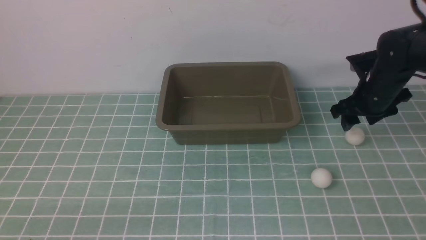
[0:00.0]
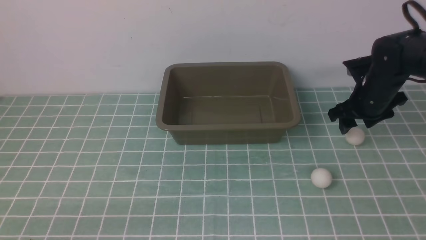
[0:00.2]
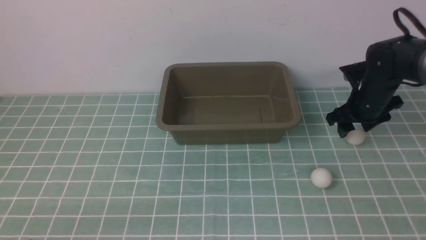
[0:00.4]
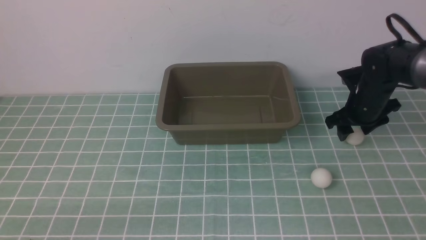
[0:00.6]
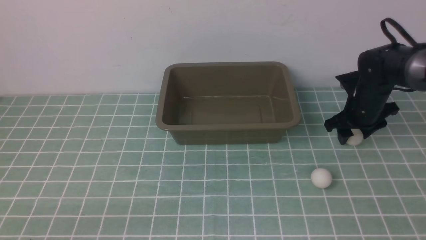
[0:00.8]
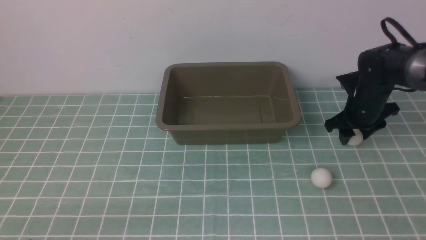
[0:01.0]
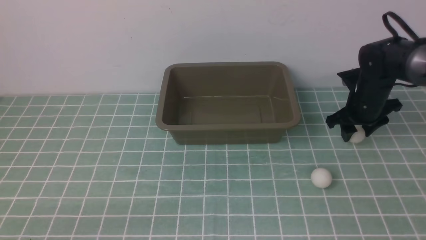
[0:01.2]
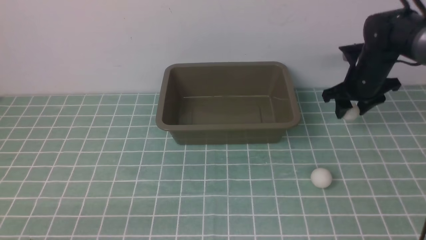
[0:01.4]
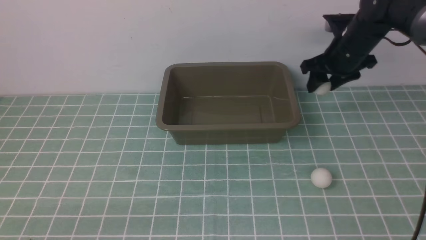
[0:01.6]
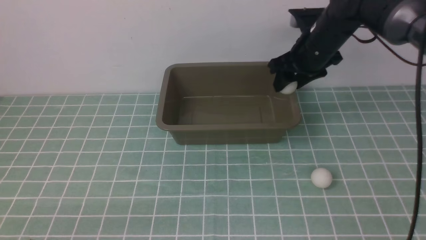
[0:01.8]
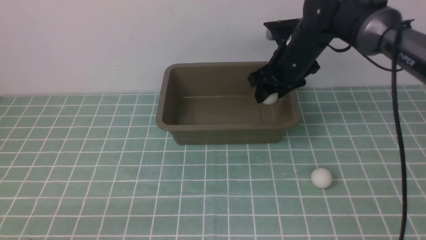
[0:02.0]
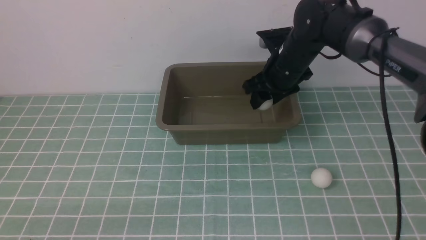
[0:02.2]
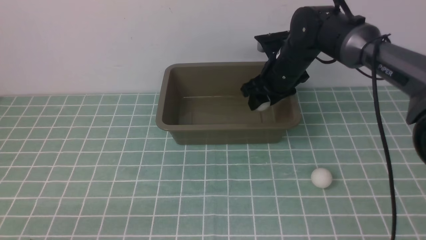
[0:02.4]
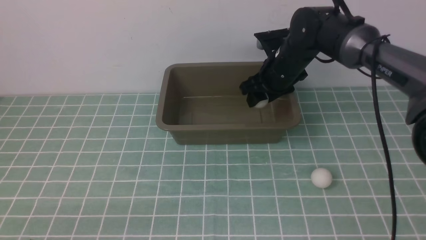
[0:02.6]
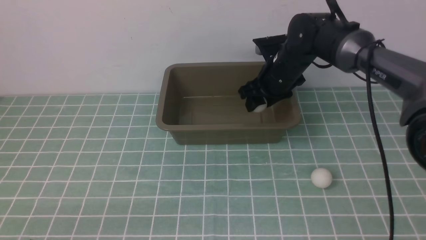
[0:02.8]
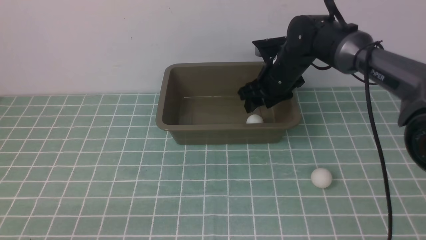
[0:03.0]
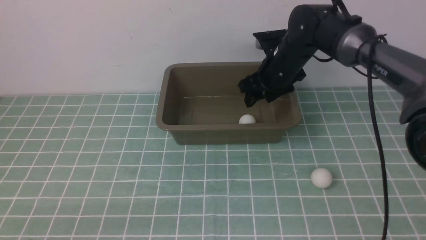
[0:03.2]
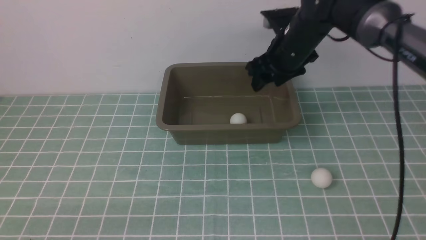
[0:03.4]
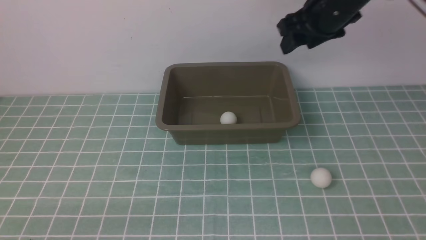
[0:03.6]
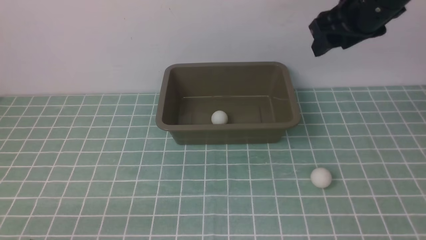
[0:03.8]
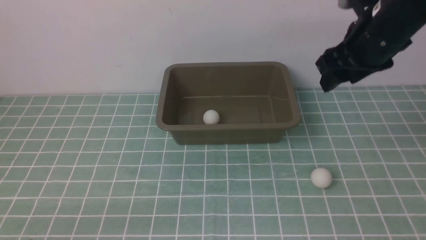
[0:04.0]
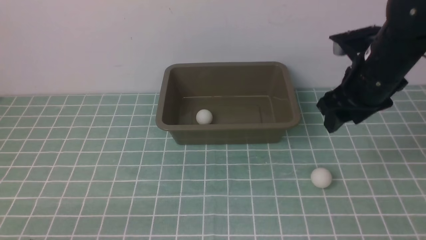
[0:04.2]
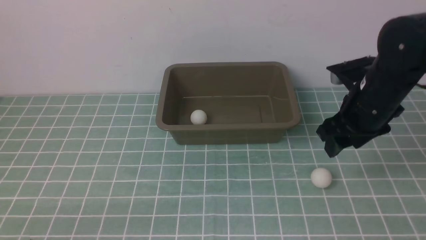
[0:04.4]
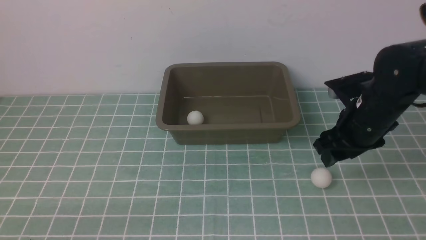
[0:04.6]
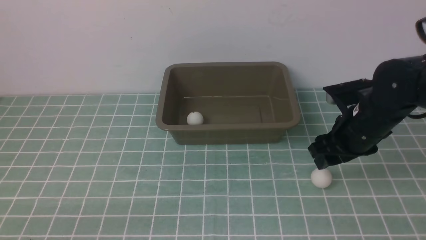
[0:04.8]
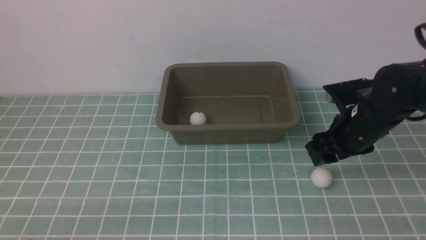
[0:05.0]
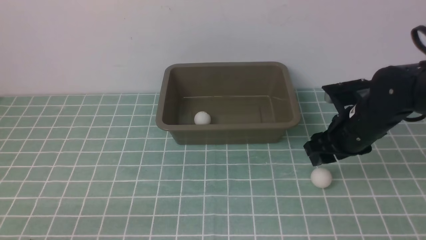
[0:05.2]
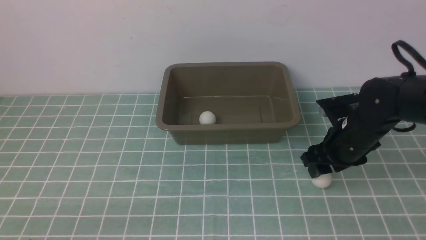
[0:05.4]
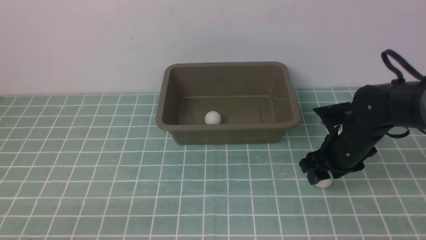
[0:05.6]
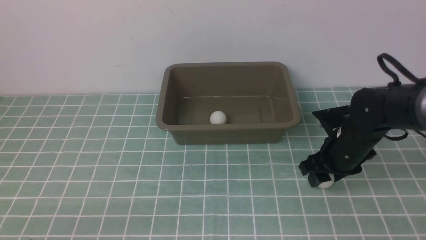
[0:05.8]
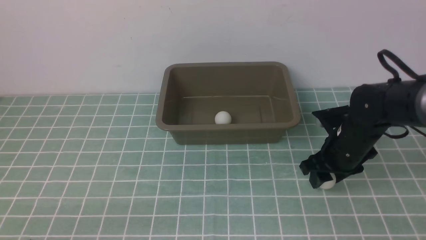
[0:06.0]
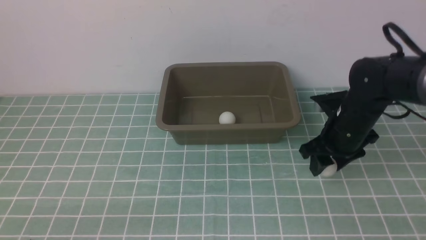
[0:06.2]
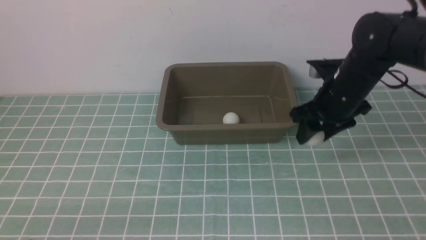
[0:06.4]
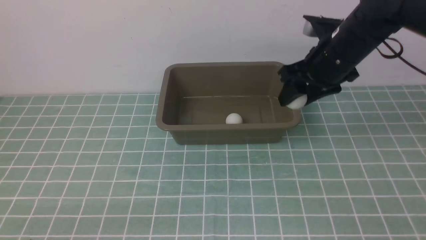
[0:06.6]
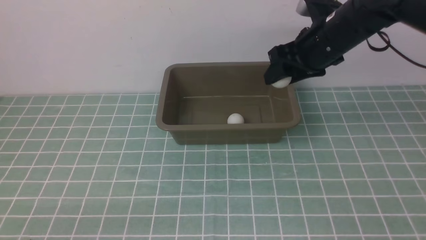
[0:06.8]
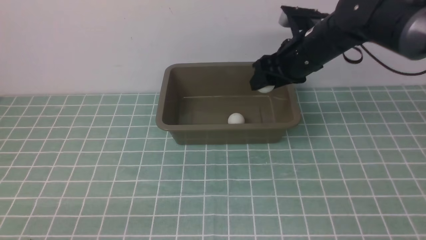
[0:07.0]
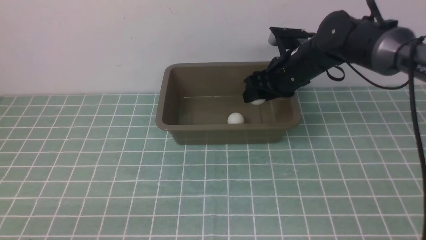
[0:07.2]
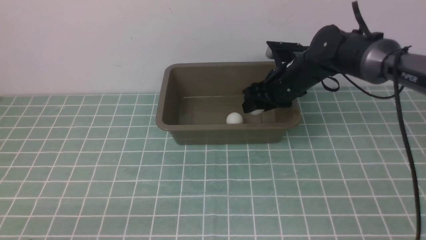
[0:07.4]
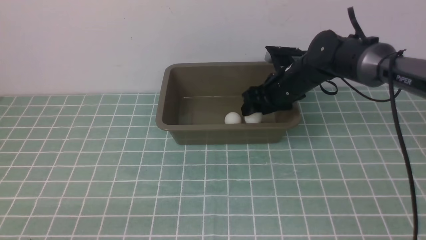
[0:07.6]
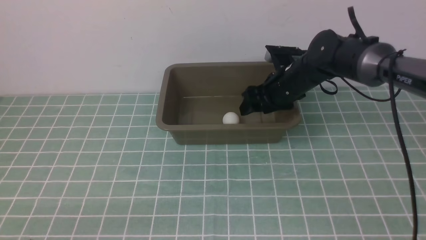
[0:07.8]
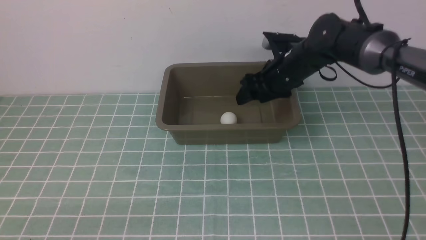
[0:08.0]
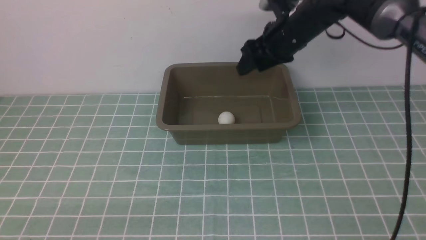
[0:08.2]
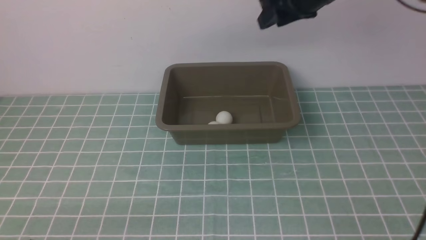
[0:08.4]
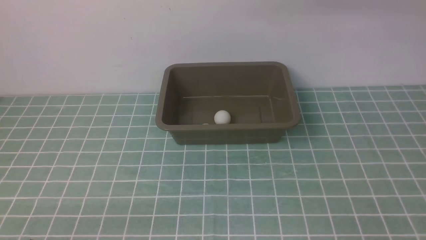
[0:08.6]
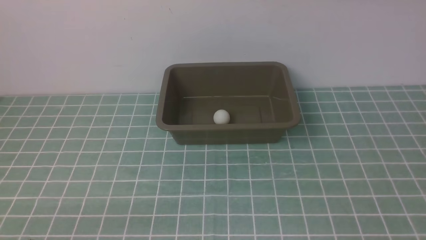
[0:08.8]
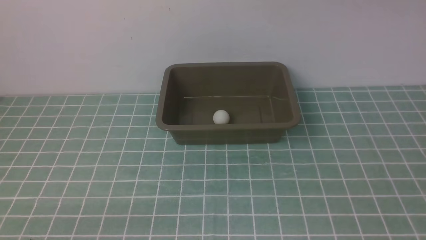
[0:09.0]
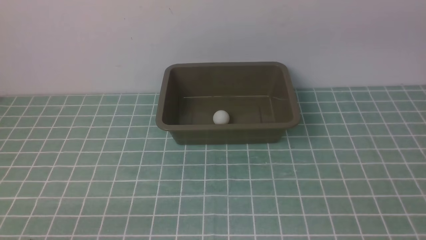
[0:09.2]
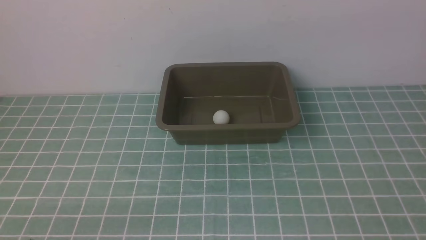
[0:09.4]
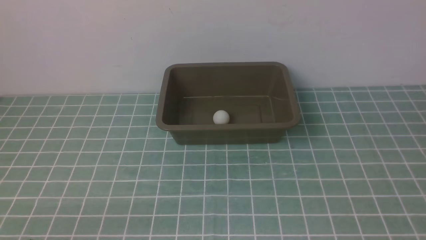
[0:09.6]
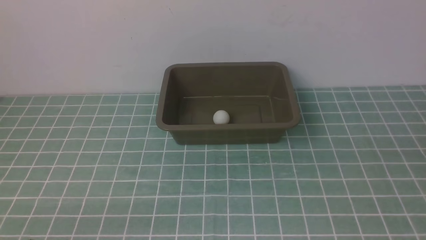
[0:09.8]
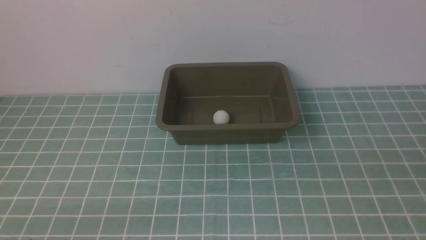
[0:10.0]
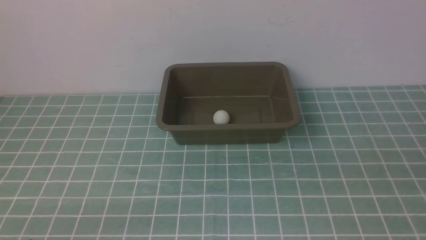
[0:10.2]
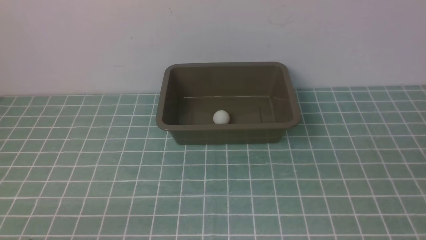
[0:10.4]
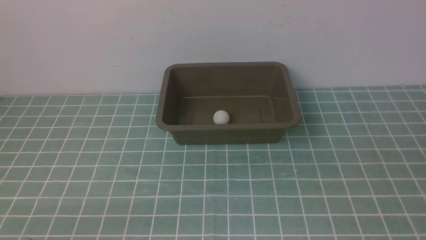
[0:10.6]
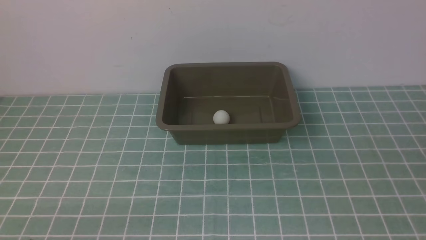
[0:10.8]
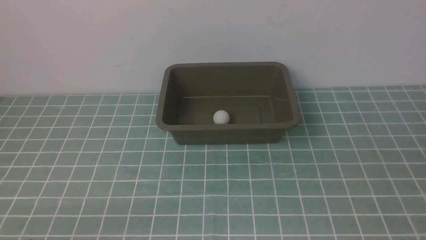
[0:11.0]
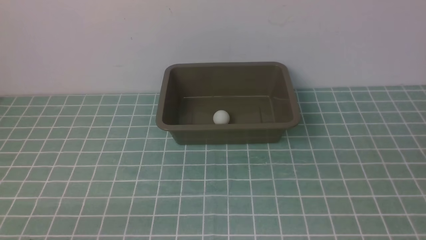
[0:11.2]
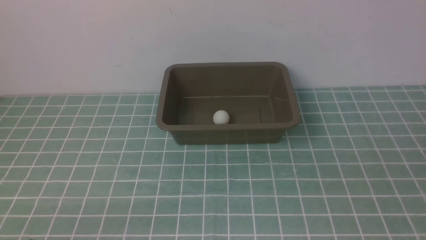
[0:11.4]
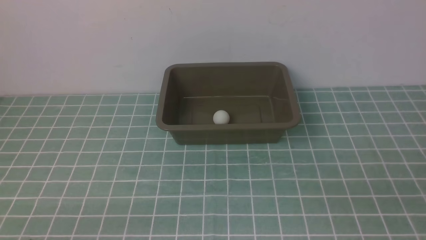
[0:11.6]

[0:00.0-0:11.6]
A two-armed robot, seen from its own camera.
Step, 0:01.4 to 0:03.4: use the right arm to put the table tennis ball into the box.
Step, 0:03.6 to 0:06.2: use the right arm to clamp the table tennis ball closest to it.
Step, 0:06.4 to 0:07.8: use the right arm to put the table tennis ball into the box.
0:00.0 to 0:01.4: The right gripper shifts by roughly 5 cm.
0:01.4 to 0:02.8: The right gripper heads to the left, covering some 15 cm.
0:02.8 to 0:04.4: The right gripper travels backward, to the right and upward by approximately 15 cm.
0:04.4 to 0:05.8: The right gripper moves downward, approximately 15 cm.
0:05.8 to 0:07.2: The right gripper travels forward, upward and to the left by approximately 15 cm.
0:07.2 to 0:08.8: The right gripper moves upward and backward, about 35 cm, and closes up.

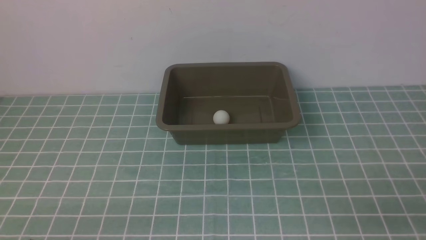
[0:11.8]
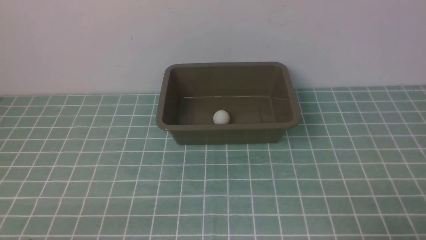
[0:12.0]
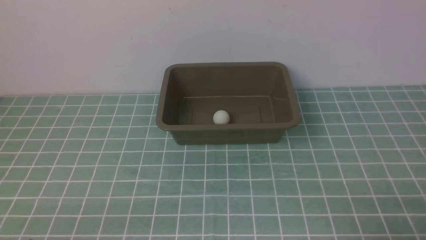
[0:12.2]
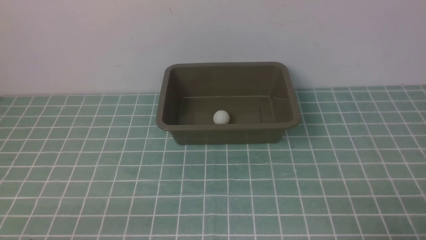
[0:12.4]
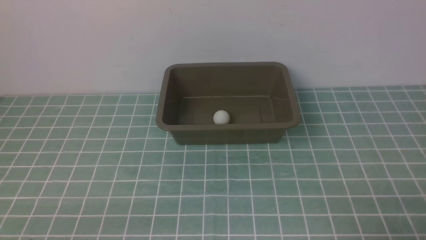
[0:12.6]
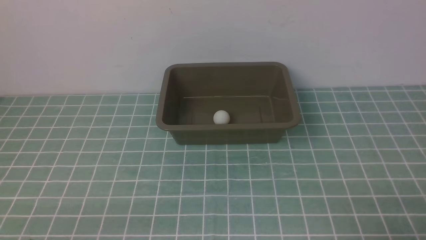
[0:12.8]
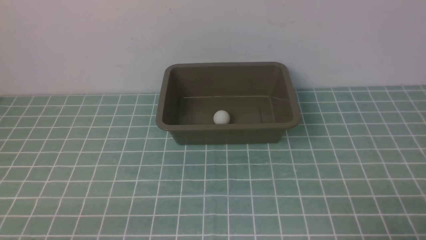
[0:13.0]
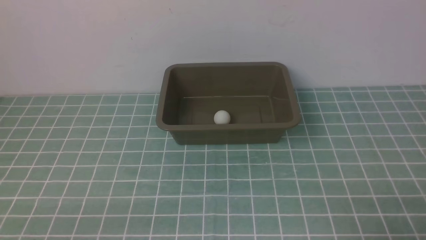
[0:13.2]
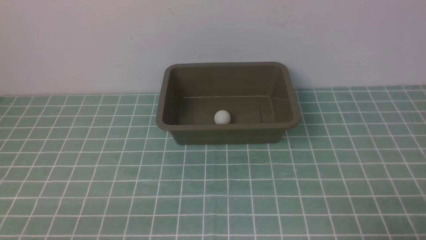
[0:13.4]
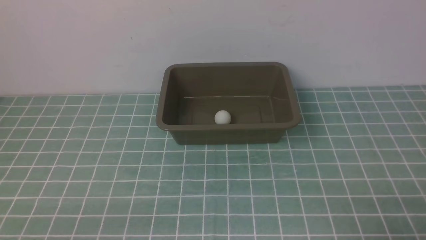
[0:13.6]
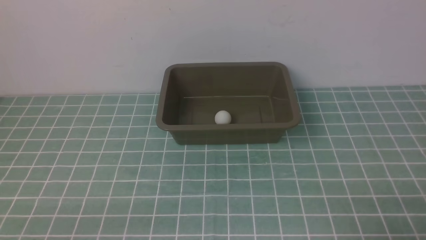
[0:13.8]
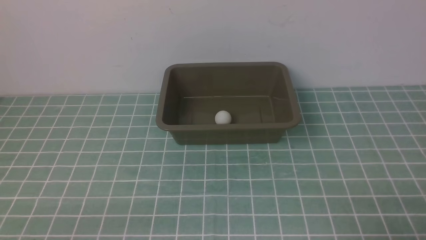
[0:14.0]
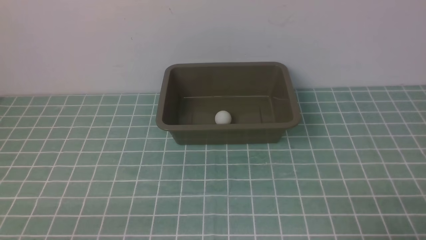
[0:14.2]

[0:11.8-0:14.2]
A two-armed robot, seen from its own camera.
0:13.0 to 0:14.2: The two grippers keep their place.

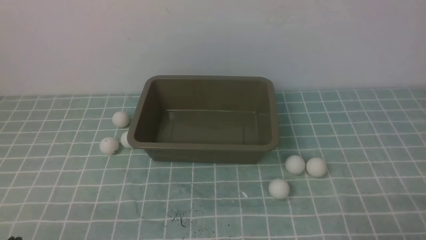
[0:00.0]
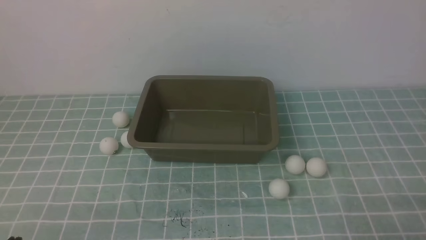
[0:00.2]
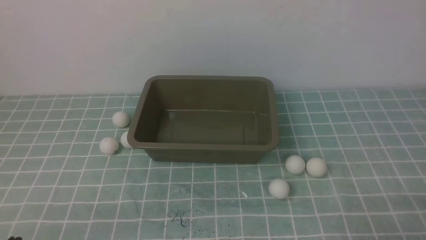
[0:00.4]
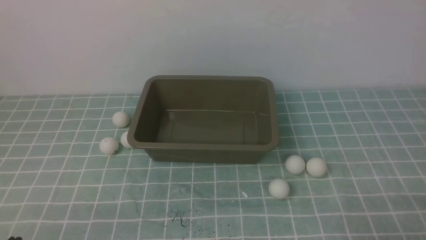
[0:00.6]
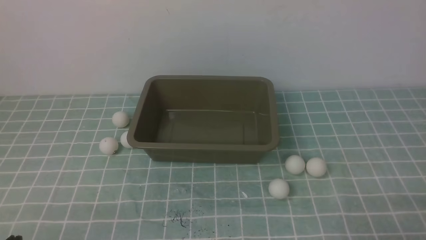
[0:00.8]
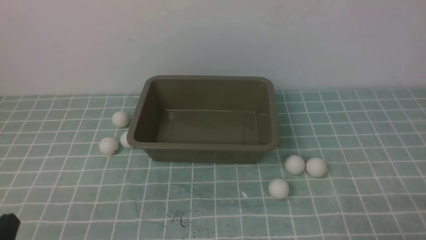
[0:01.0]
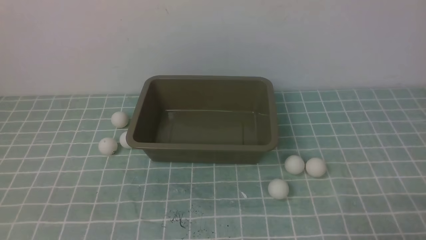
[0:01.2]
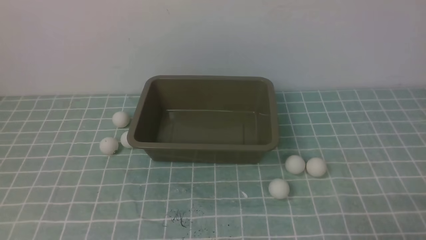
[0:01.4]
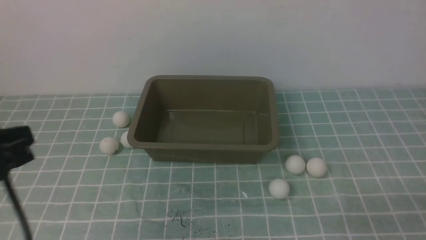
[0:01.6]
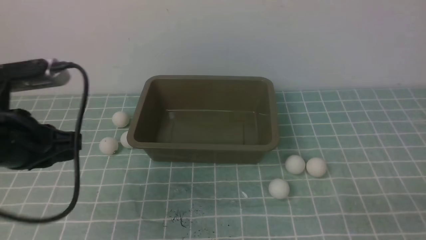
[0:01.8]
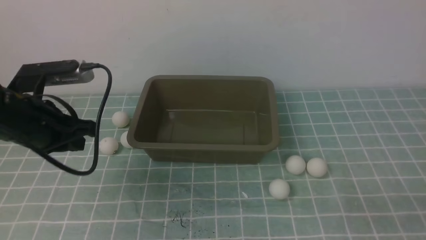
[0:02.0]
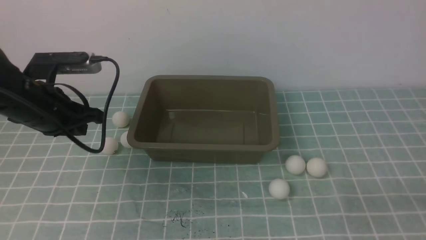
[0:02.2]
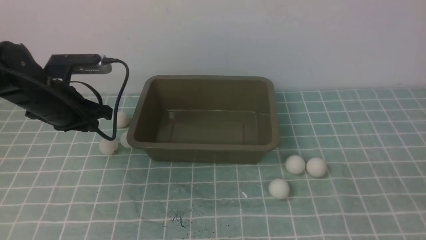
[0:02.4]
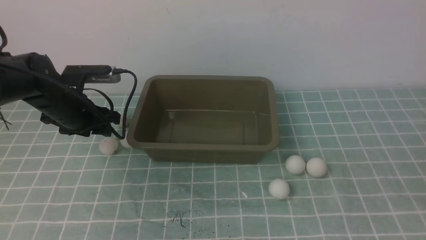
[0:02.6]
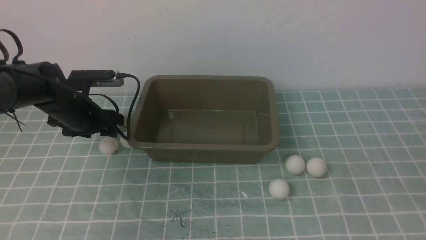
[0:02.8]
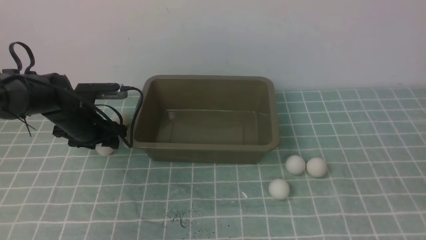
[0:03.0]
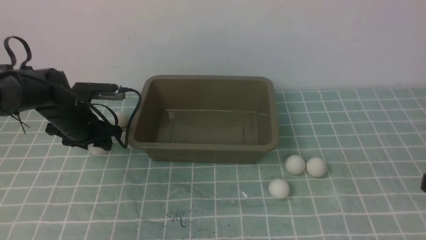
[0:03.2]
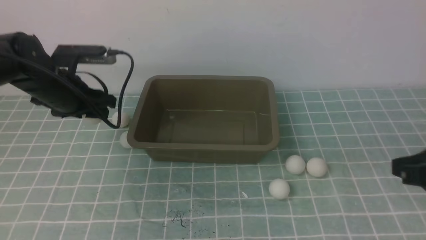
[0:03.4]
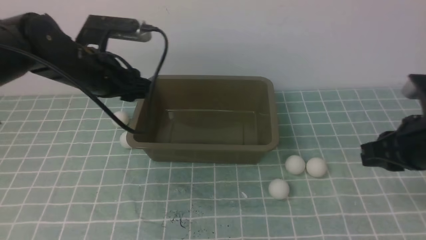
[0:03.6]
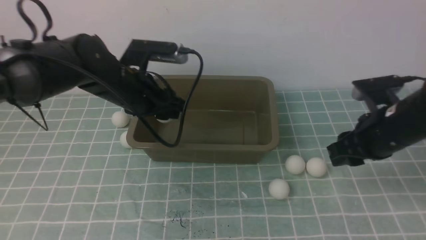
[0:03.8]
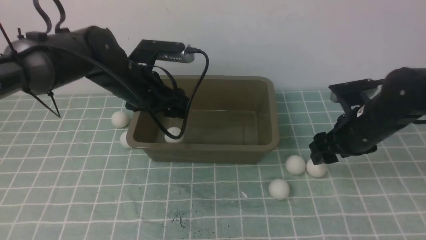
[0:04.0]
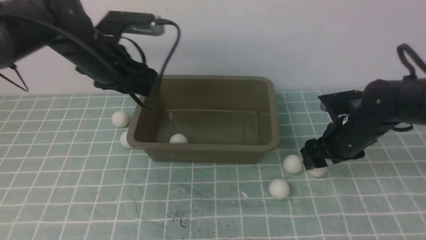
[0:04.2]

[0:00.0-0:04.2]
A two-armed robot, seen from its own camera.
Step, 0:00.0 to 0:03.2: use the left arm to clamp the table tennis ball closest to it.
Step, 0:03.4 to 0:04.0: use the left arm to put the table tennis ball into the box.
0:01.4 to 0:02.8: The right gripper travels upward by about 10 cm. The left gripper heads forward, covering about 30 cm, and opens up.
0:02.8 to 0:04.2: The right gripper is displaced forward and downward by roughly 30 cm, and opens its fingers. The left gripper is displaced upward and to the right by about 10 cm.
